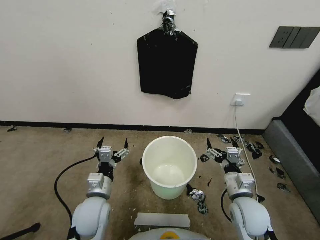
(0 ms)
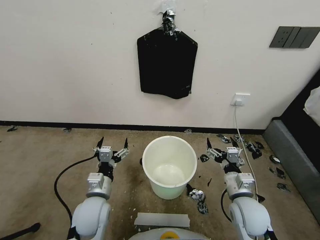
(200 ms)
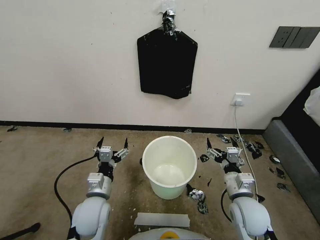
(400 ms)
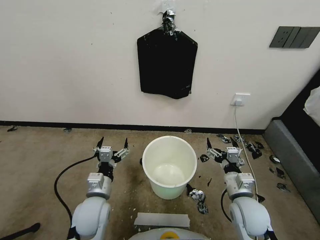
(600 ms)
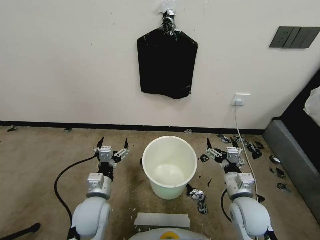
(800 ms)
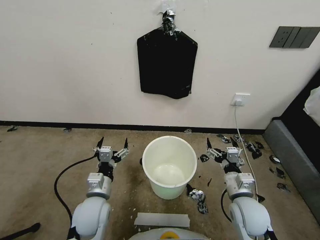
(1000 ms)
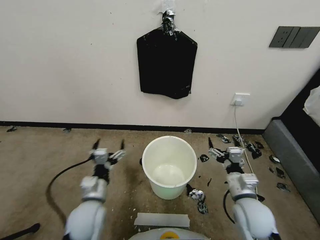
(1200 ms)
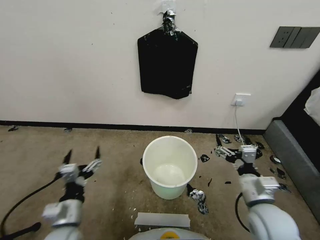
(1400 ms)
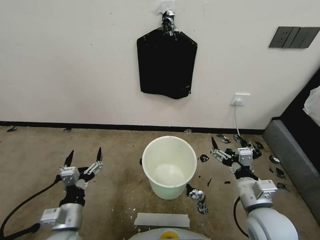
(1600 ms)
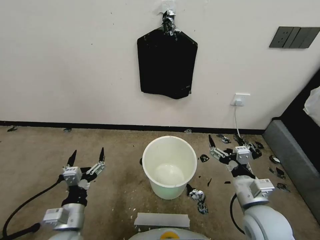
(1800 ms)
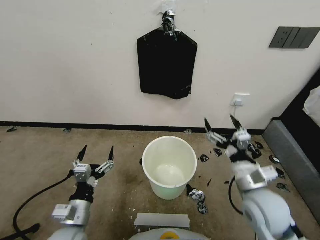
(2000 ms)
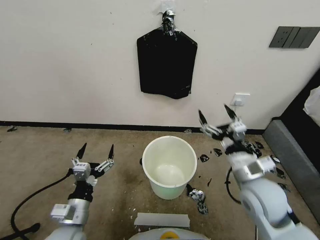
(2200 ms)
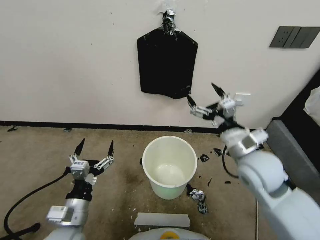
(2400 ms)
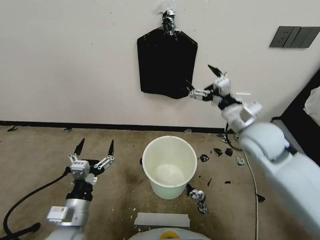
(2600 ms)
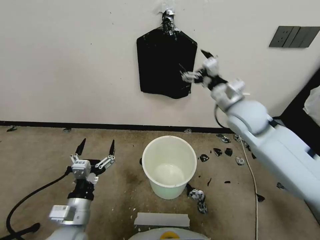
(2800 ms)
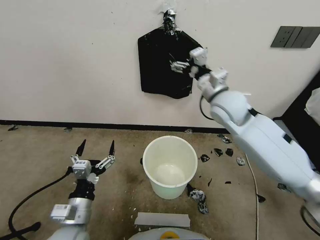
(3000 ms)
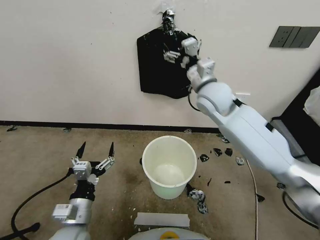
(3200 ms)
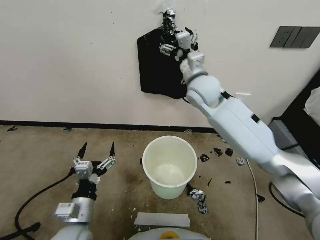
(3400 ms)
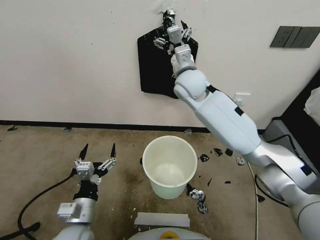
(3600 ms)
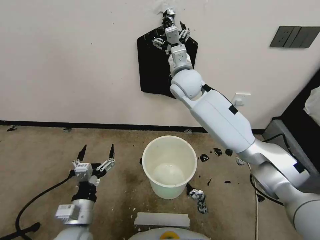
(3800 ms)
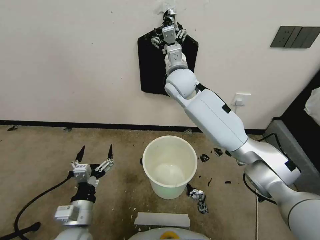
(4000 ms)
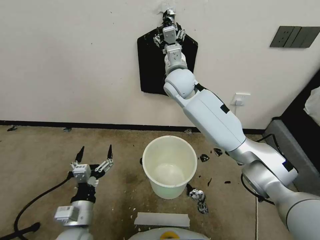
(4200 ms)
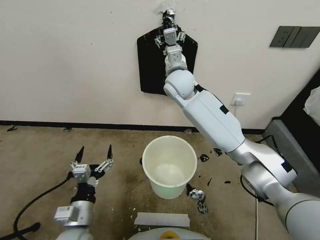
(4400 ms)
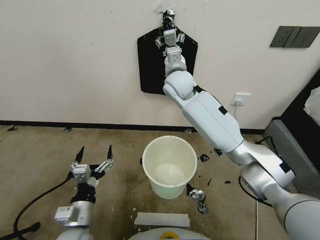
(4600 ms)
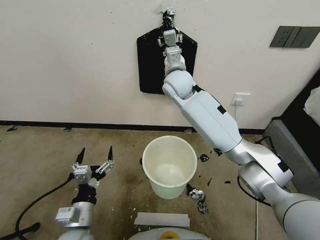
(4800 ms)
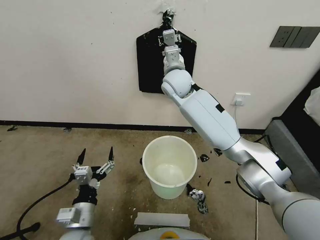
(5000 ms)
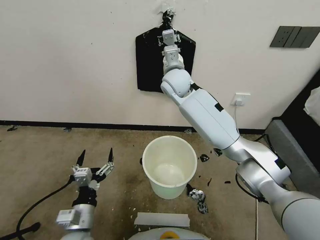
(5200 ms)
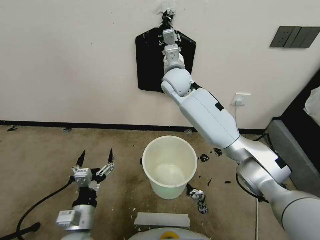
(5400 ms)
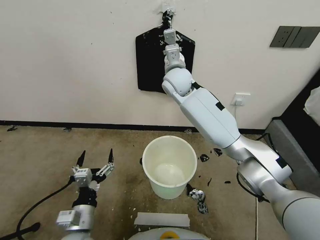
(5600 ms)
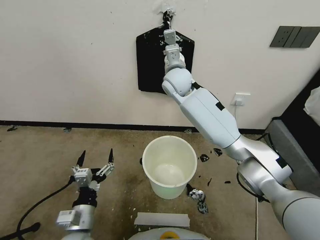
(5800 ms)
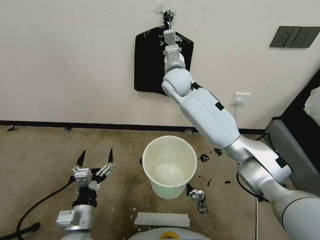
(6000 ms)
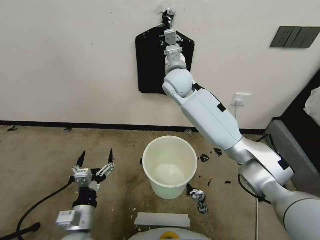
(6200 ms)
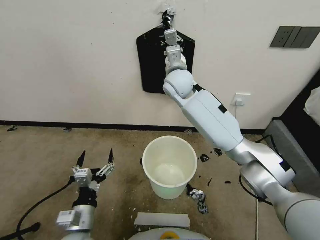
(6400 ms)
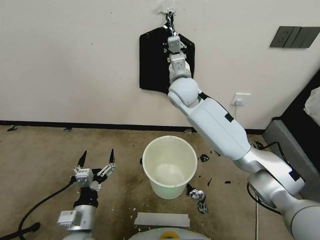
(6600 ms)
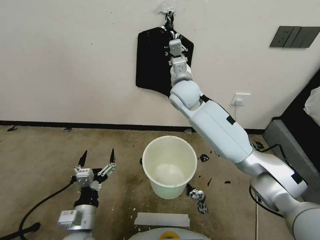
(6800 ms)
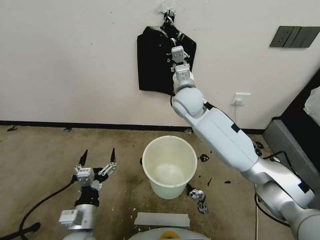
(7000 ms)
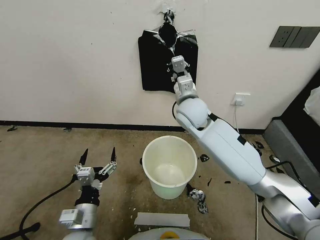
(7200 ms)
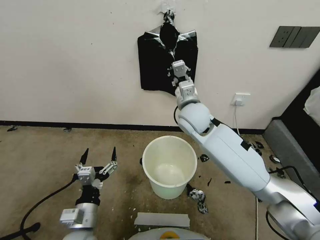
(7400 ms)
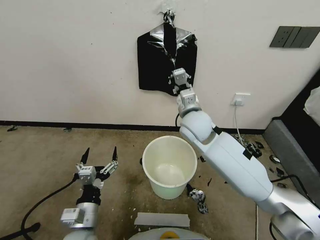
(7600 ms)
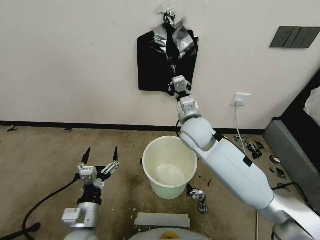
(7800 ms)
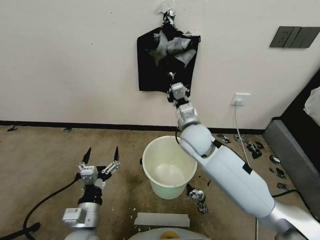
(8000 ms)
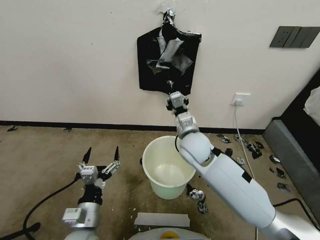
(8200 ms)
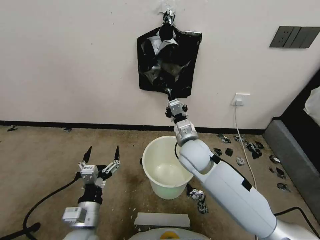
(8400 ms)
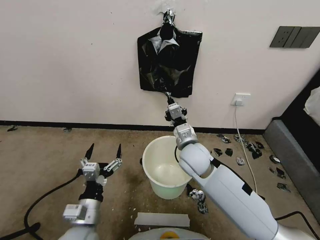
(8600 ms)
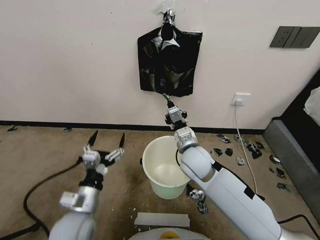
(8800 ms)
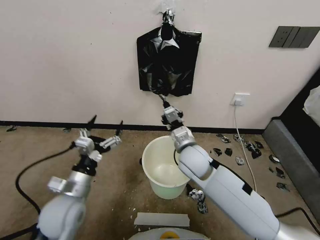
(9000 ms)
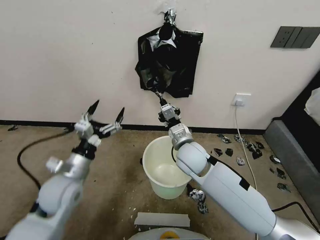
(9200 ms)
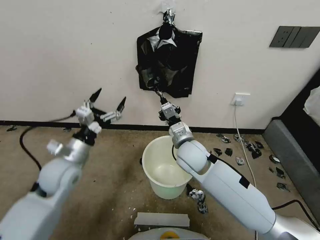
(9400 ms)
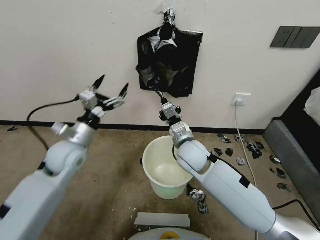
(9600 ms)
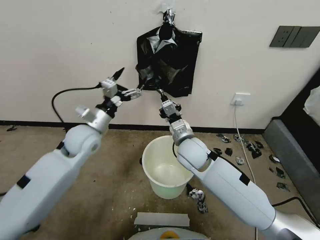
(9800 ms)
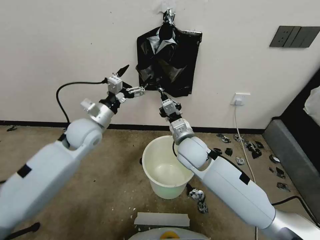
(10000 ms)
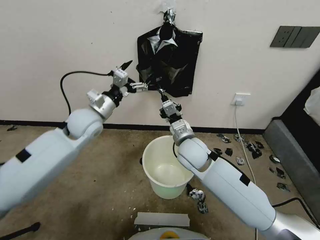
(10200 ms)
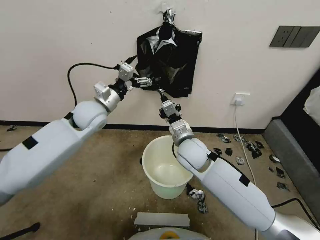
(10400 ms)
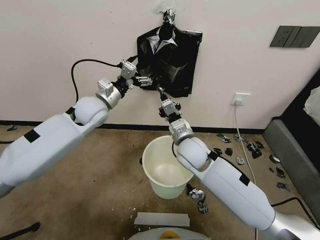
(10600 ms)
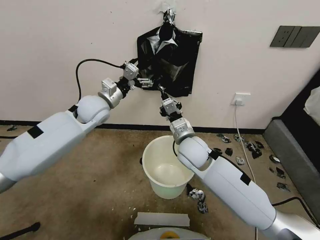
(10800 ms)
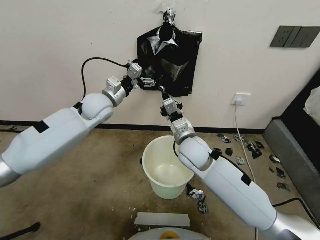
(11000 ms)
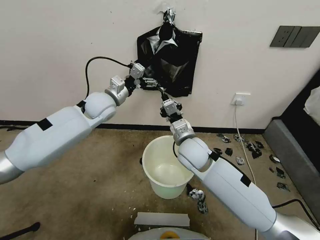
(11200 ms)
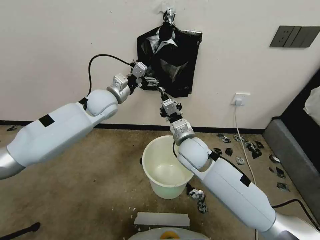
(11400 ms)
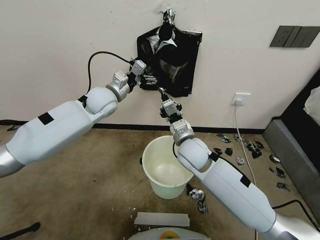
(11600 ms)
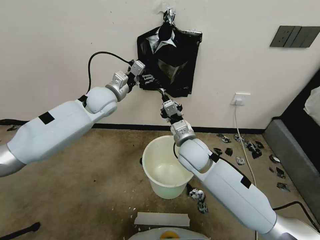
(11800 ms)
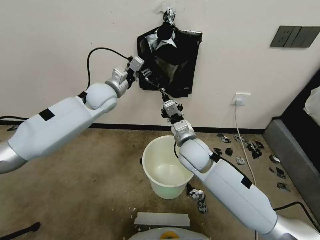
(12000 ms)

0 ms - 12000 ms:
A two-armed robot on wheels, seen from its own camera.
Task of the whole recording: Place a trash bag onto the trash bin.
1600 ms - 3000 ms: The right gripper shifts about 30 cm forward and upward.
3000 ms - 4400 ms: The right gripper goes some 15 cm to the left and forward.
4400 ms - 6000 ms: The right gripper closes up.
6000 ms - 7600 ms: The right gripper goes roughly 15 cm backward, downward and to the right.
7600 ms - 9000 ms: The left gripper heads forward and upward, covering approximately 10 cm, while the right gripper travels downward and backward by roughly 10 cm.
9000 ms - 10400 ms: The left gripper moves forward and upward, some 25 cm.
10400 ms - 12000 ms: The left gripper travels forward by some 5 cm, and closes up.

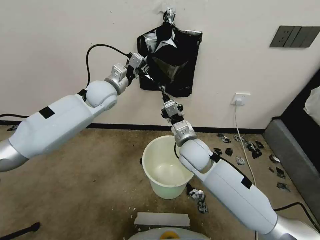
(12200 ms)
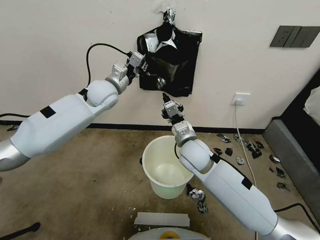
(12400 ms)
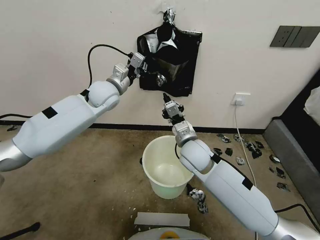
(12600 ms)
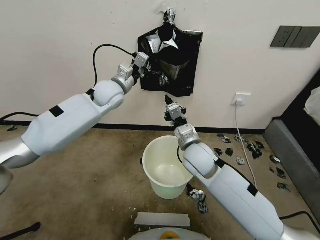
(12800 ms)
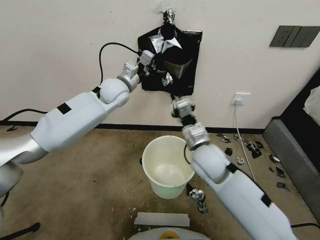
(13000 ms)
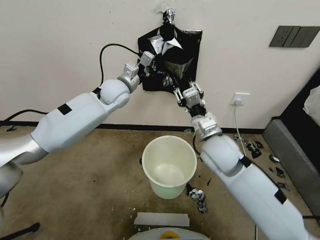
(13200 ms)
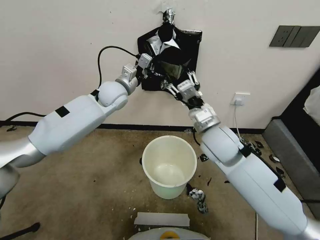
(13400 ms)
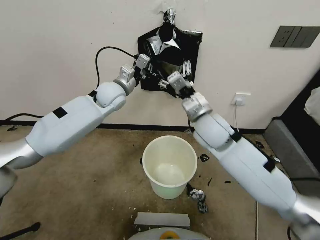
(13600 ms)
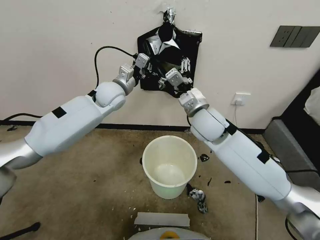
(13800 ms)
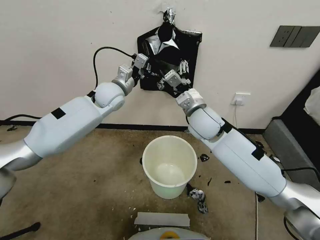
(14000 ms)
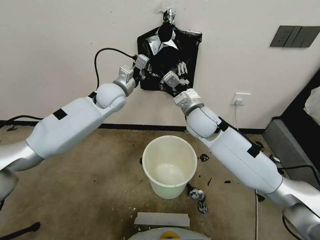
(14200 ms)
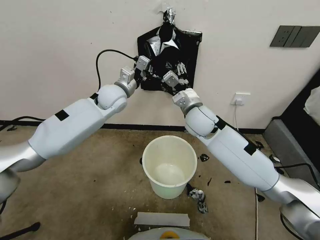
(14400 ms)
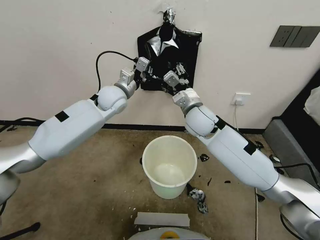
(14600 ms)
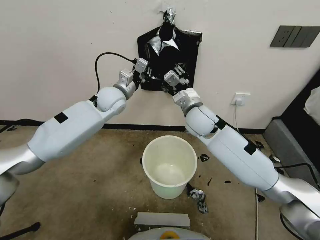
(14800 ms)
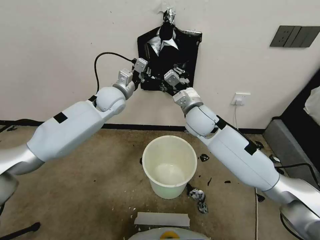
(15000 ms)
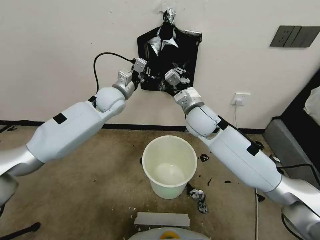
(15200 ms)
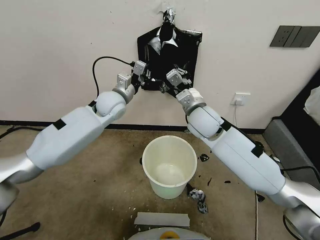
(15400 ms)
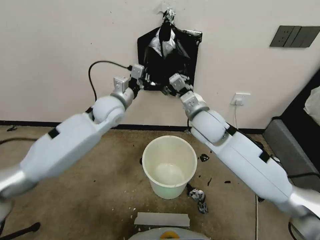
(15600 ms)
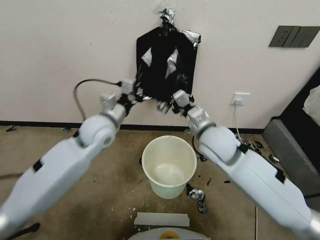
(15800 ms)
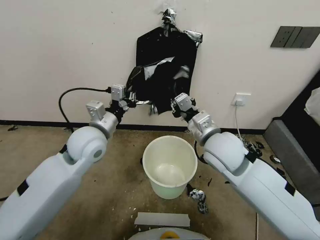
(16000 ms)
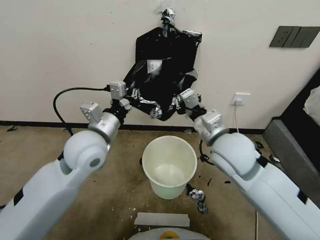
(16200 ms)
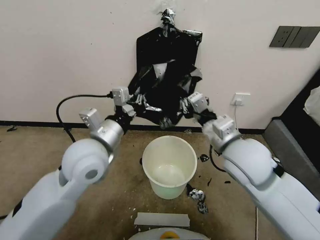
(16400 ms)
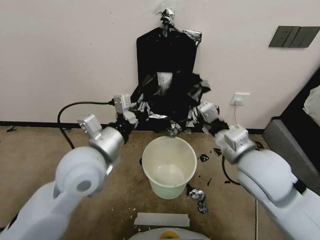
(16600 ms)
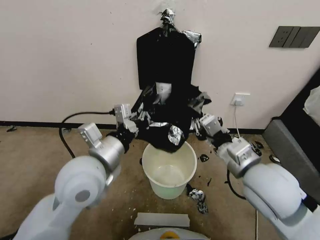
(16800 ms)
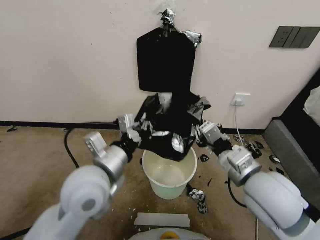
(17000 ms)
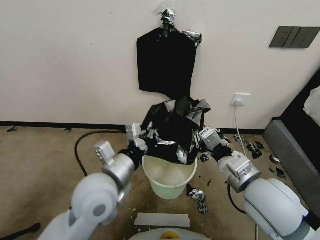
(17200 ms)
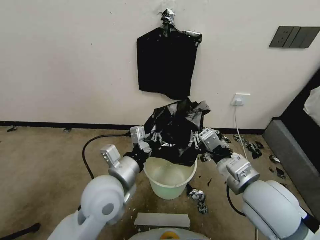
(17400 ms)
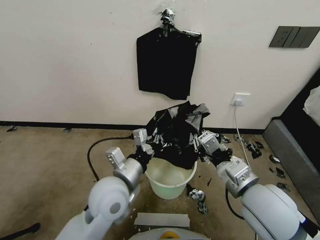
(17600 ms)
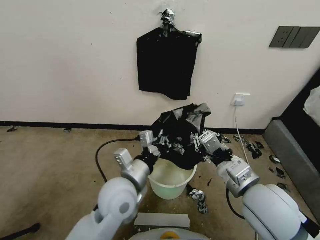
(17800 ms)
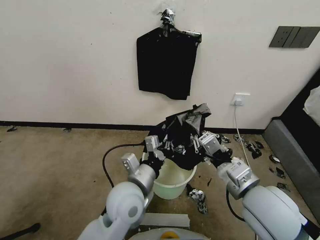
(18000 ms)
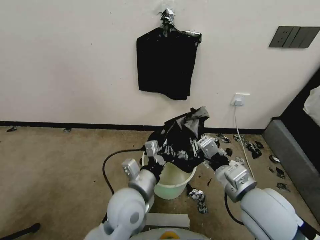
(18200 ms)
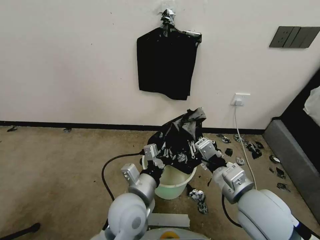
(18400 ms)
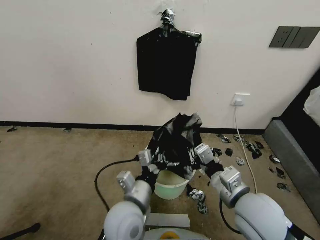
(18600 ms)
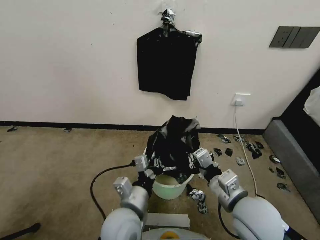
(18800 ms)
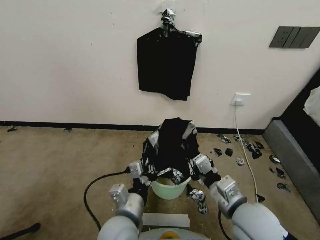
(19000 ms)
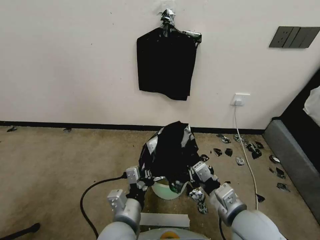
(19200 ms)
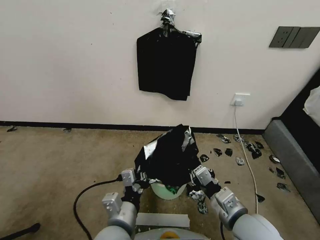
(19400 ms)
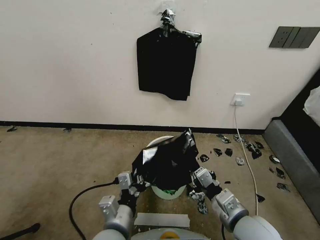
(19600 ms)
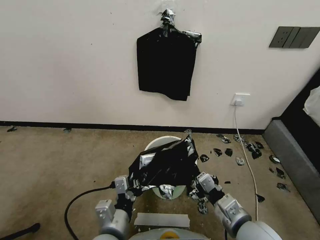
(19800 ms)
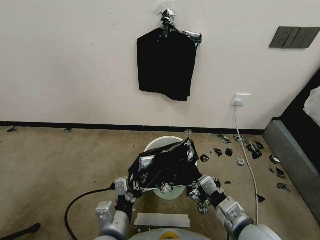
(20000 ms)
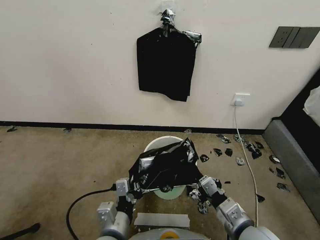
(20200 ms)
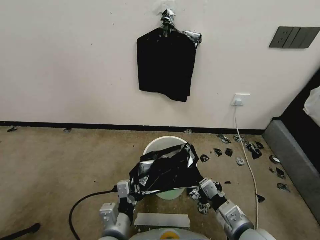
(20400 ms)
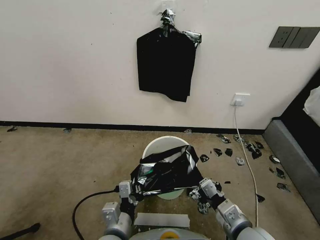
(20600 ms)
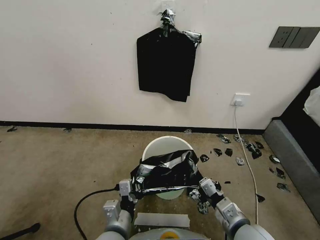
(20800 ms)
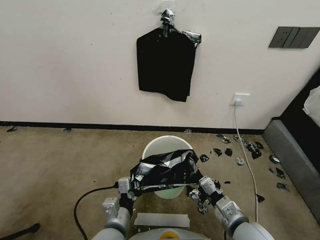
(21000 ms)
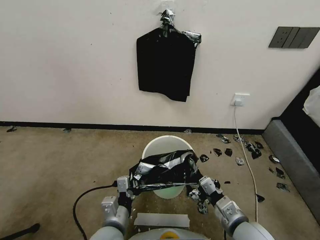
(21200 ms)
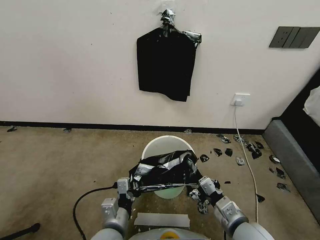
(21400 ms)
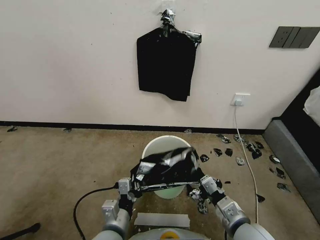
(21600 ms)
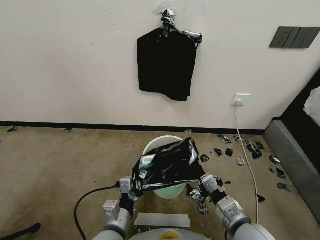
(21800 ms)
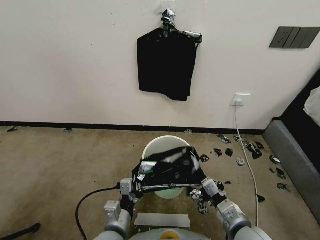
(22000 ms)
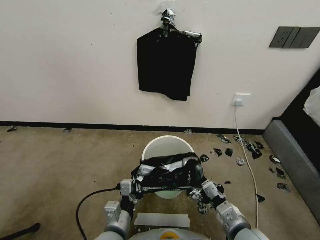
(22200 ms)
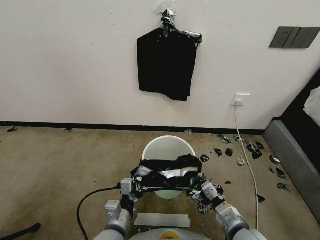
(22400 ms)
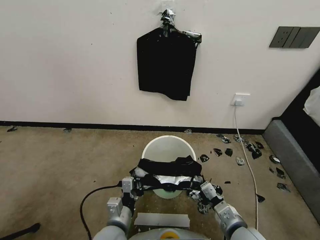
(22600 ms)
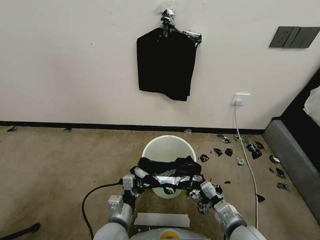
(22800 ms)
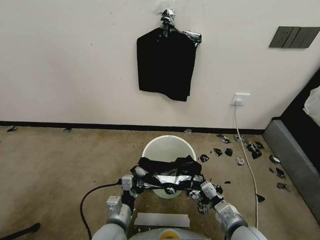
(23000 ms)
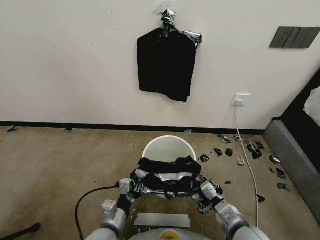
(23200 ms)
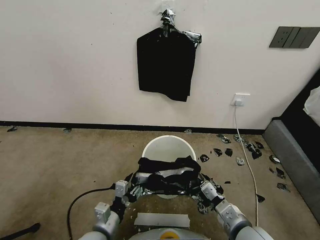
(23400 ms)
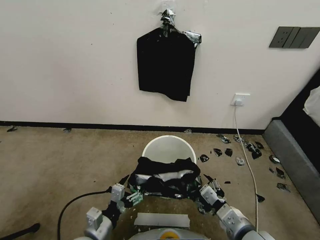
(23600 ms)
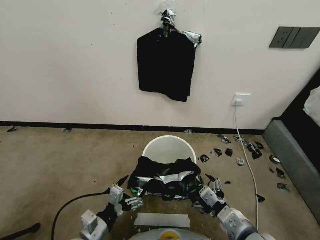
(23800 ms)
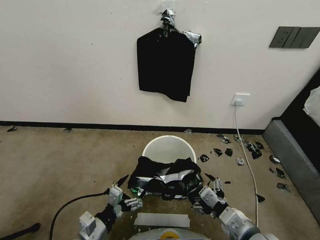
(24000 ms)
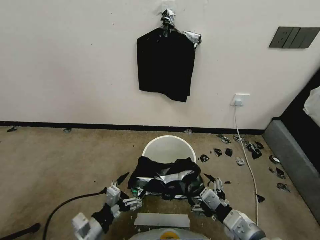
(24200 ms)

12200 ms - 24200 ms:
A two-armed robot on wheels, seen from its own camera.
Task of the whole recording: Place a trash bag onto the trash bin.
12200 ms - 13800 ms: The right gripper goes approximately 10 cm upward, and opens.
13800 ms - 15200 ms: The right gripper closes up.
15200 ms - 16600 ms: The left gripper goes roughly 25 cm backward; the right gripper heads backward and to the right, covering approximately 20 cm.
16600 ms - 18200 ms: The left gripper is displaced downward and to the right by approximately 15 cm, while the right gripper travels backward and downward by some 10 cm.
18200 ms - 19800 ms: The left gripper travels backward by roughly 10 cm. Meanwhile the right gripper travels downward by roughly 10 cm.
19800 ms - 21200 ms: The left gripper moves downward, roughly 5 cm.
21200 ms - 22600 ms: The grippers move only a little.
22600 ms - 24200 ms: The right gripper shifts about 10 cm upward, and opens its fingers. The left gripper is displaced to the left by some 10 cm, and opens up.
